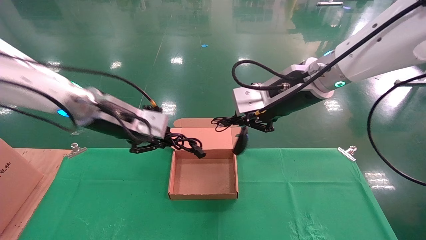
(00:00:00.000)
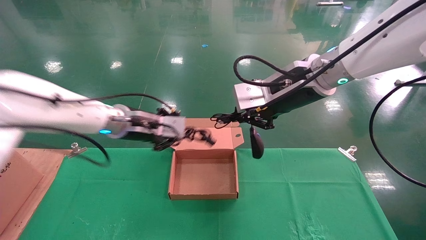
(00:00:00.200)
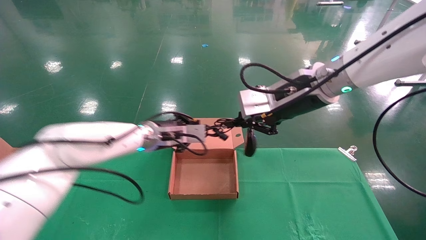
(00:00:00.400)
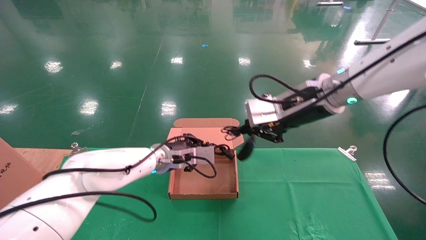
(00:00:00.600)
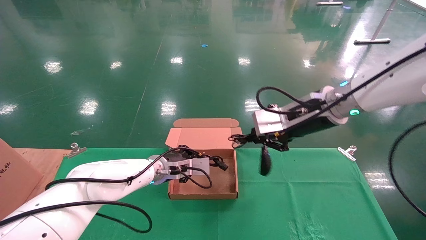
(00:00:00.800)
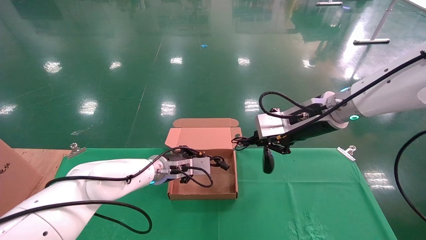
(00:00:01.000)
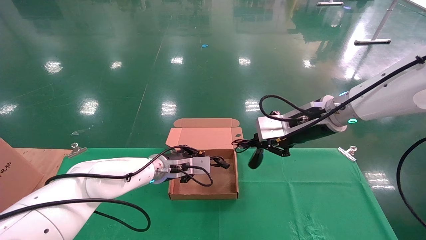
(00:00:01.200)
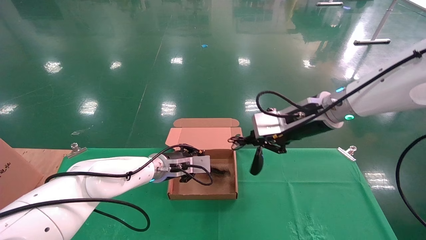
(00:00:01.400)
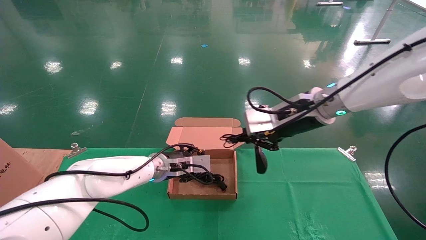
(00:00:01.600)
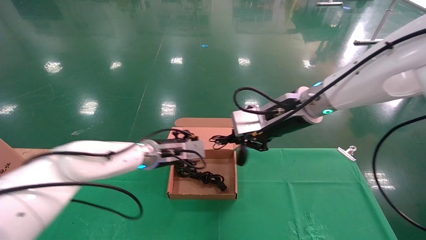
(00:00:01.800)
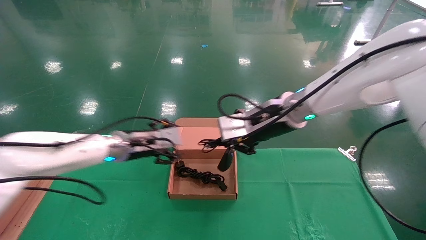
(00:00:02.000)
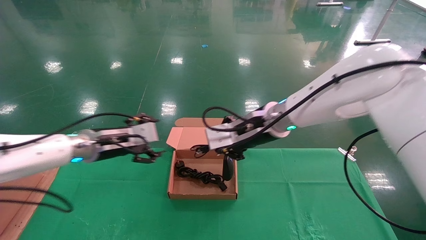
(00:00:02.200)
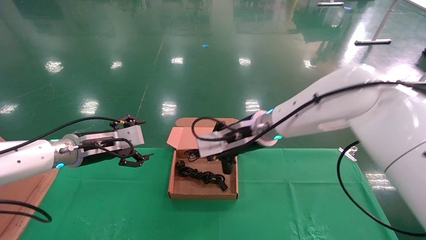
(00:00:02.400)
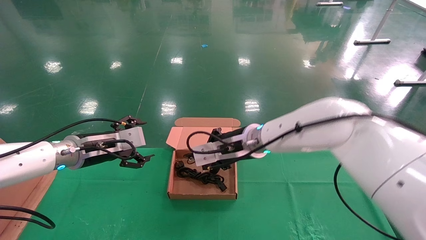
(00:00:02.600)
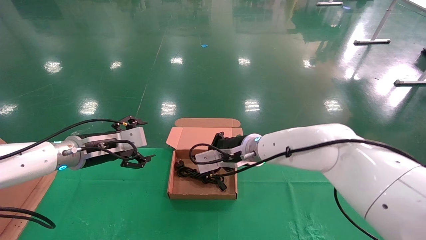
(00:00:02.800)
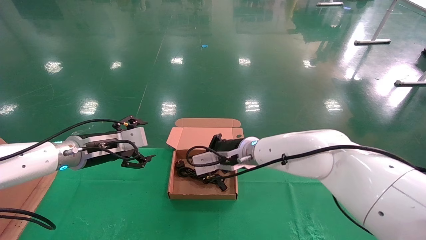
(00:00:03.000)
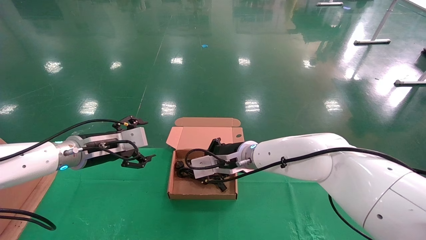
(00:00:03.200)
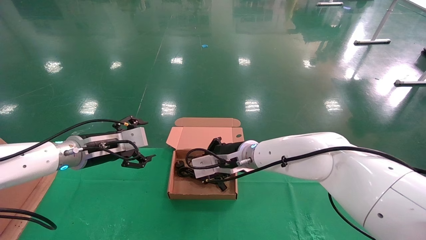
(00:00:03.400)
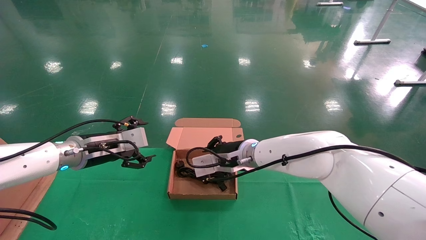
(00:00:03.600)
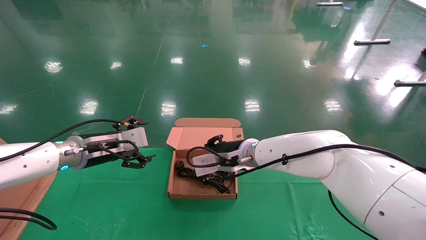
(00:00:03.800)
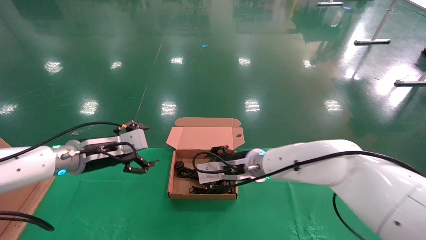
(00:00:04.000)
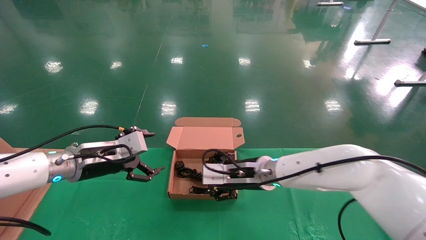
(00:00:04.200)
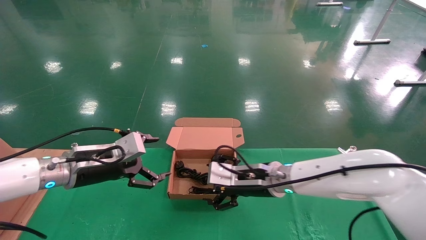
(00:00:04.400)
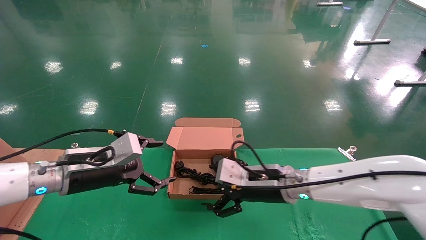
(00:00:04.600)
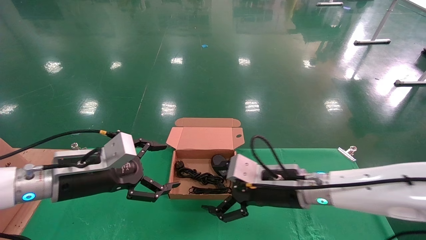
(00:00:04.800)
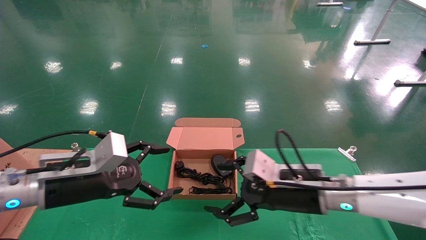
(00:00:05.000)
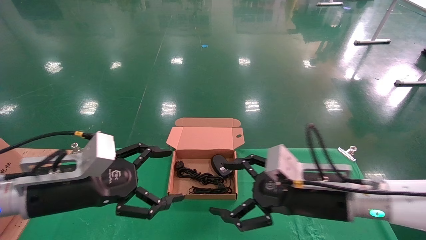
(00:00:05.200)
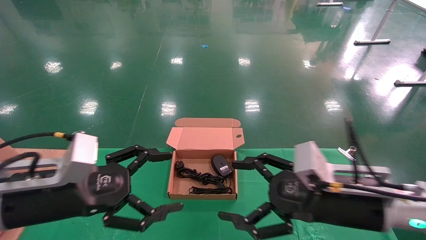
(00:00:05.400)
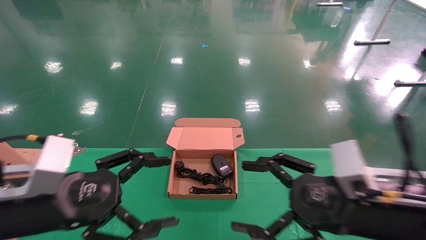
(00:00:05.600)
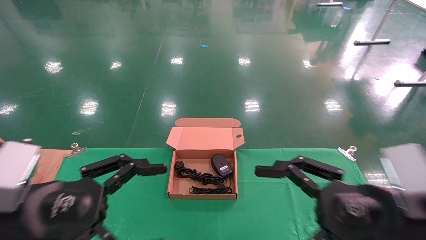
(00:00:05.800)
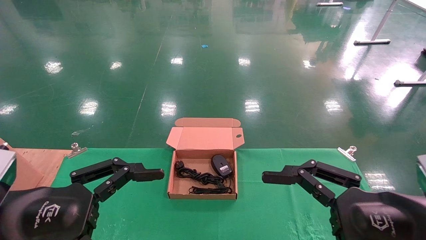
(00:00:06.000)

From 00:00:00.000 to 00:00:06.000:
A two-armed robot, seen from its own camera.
Step, from 00:00:00.000 to 00:00:04.200: Place the mouse and power cord into the box.
From 00:00:00.000 to 00:00:01.600: The right gripper goes about 5 cm downward; the left gripper goes approximately 20 cm downward, forward and to the right.
From 00:00:01.600 to 00:00:03.000: The right gripper moves downward, to the left and forward, about 15 cm, while the left gripper is displaced to the left and backward by about 15 cm, and opens up.
From 00:00:03.000 to 00:00:04.400: The right gripper is displaced to the right by roughly 5 cm, and opens up, while the left gripper moves about 5 cm.
From 00:00:04.400 to 00:00:06.000: The left gripper shifts about 20 cm backward. The right gripper heads backward and to the right, covering roughly 25 cm.
